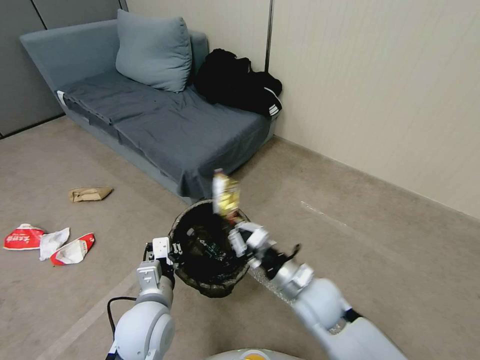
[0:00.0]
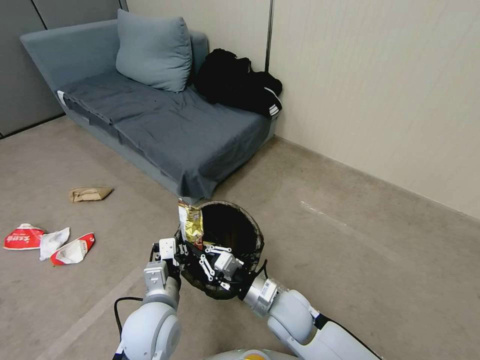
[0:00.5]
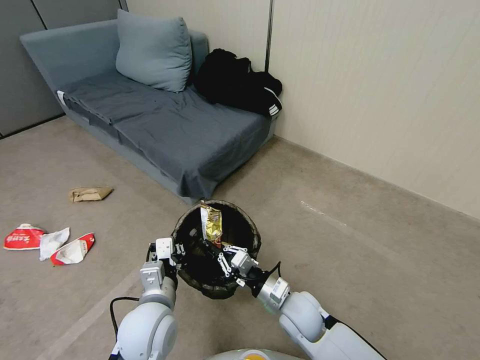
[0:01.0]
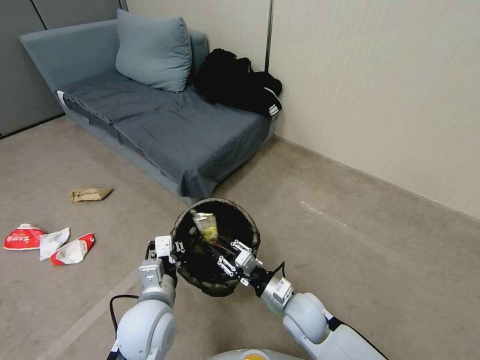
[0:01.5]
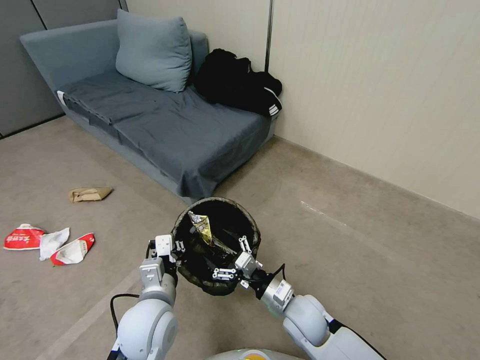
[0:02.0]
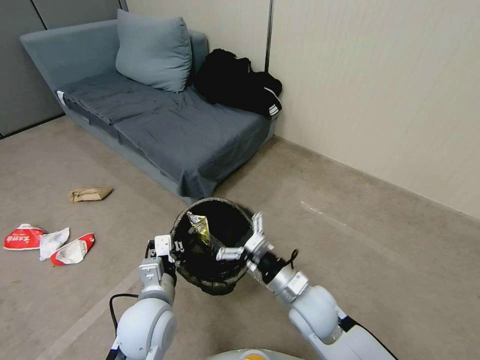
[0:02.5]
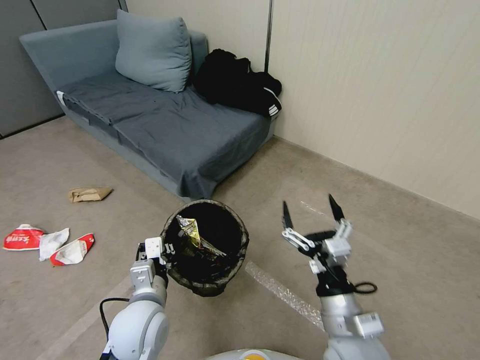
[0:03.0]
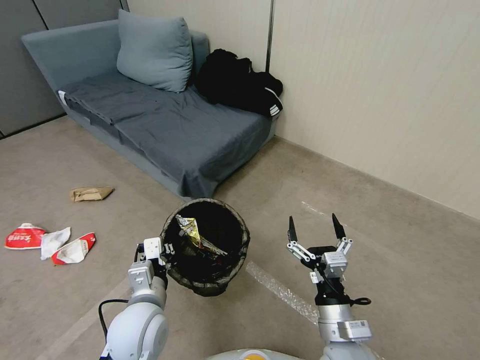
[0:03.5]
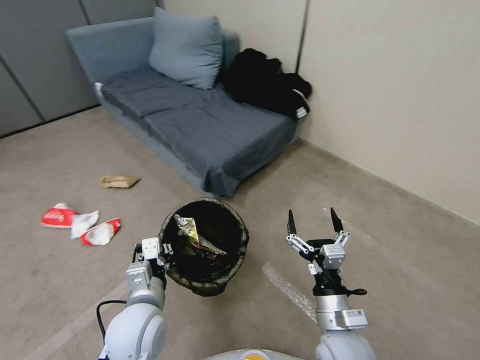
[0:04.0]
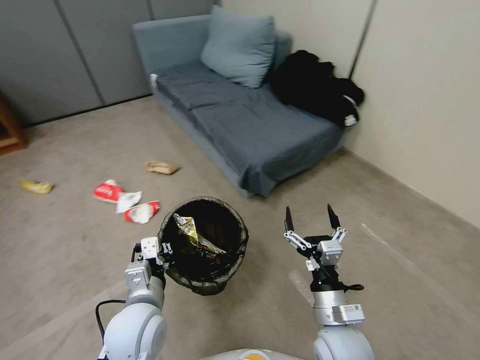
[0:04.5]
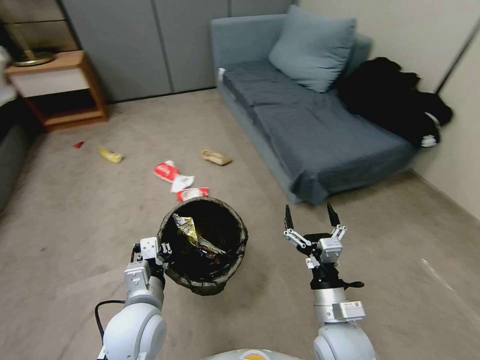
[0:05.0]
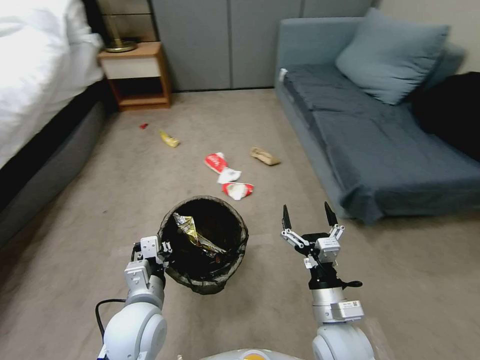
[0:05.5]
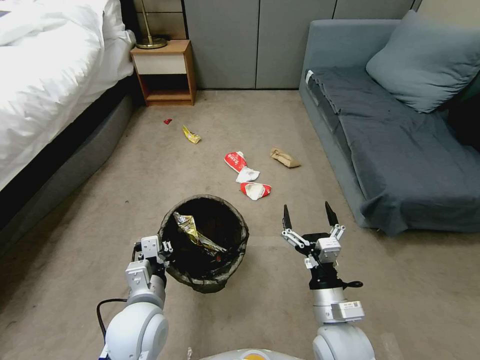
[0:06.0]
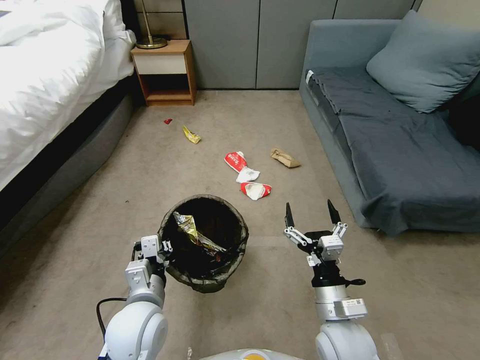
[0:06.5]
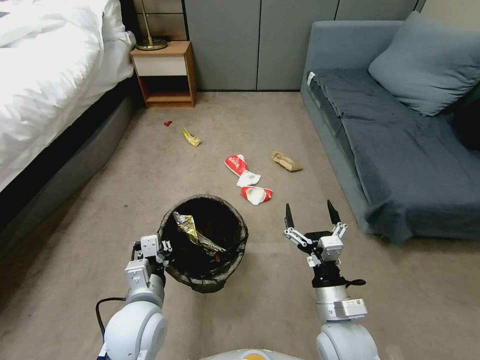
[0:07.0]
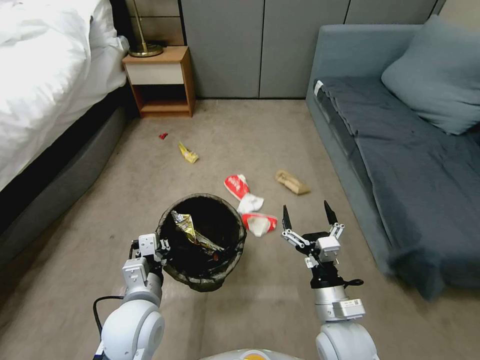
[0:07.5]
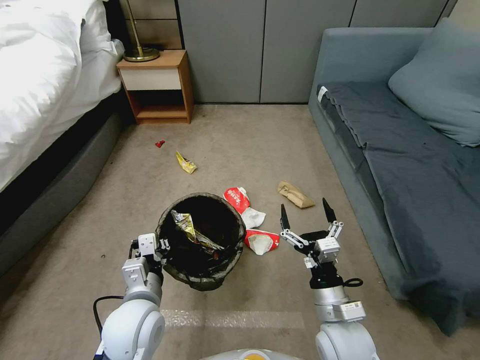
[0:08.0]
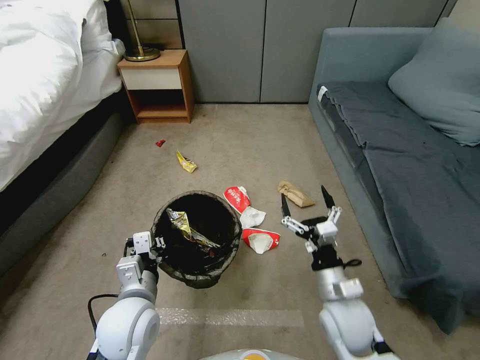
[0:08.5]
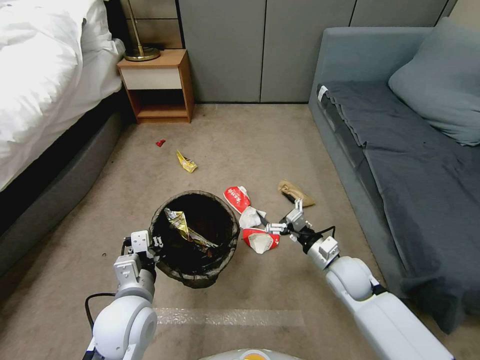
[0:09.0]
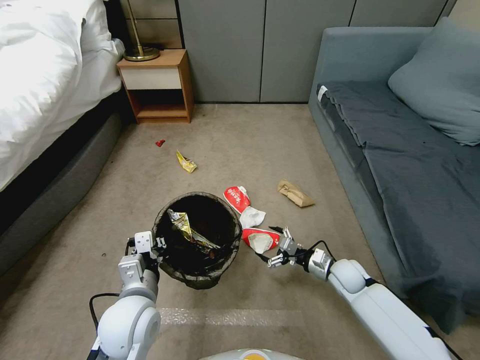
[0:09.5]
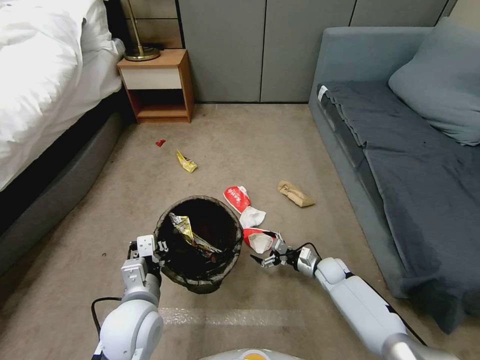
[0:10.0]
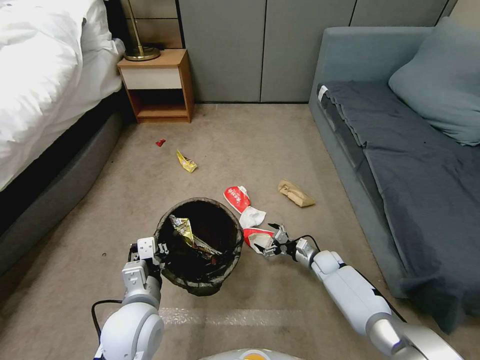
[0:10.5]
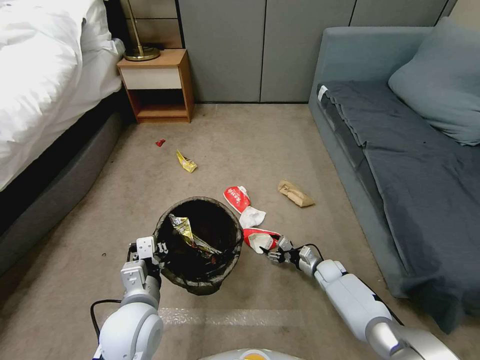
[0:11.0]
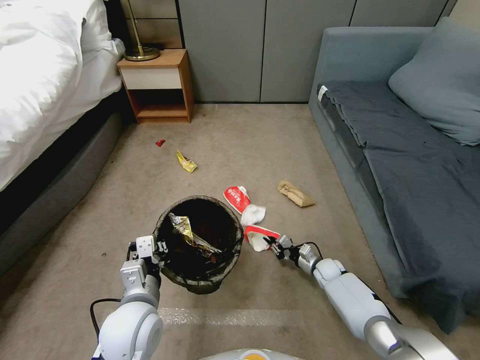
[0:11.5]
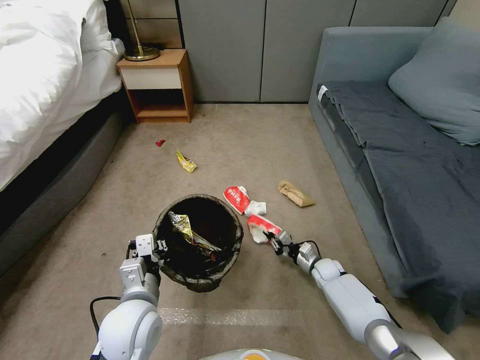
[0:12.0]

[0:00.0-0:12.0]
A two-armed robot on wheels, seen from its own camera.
Task of the whole recording: Pick up the trash bin, then pick up the garbage from the floor and place it into the trash bin.
0:00.0 to 0:02.0: The right gripper goes approximately 5 cm downward, and opens.
0:02.0 to 0:04.0: The right gripper goes approximately 10 cm backward and upward.
0:08.0 to 0:10.0: The right gripper shifts roughly 30 cm forward, downward and to the right.
0:10.0 to 0:12.0: The right gripper closes its fingers.

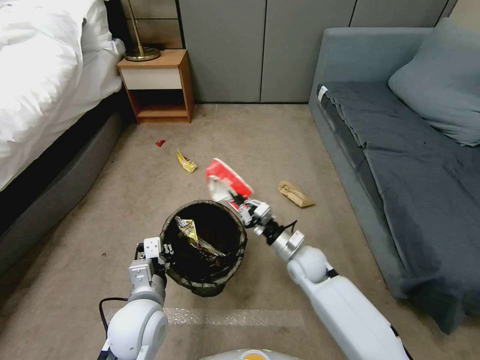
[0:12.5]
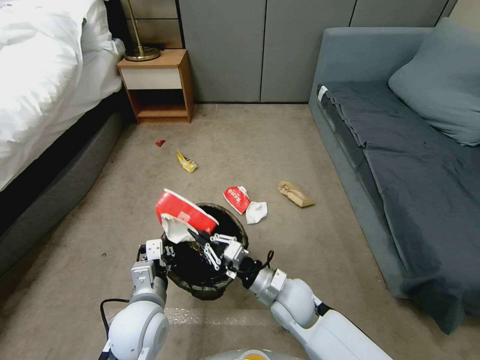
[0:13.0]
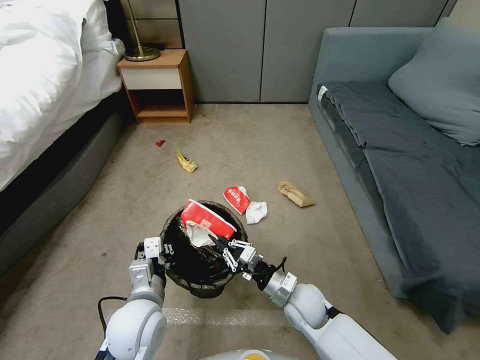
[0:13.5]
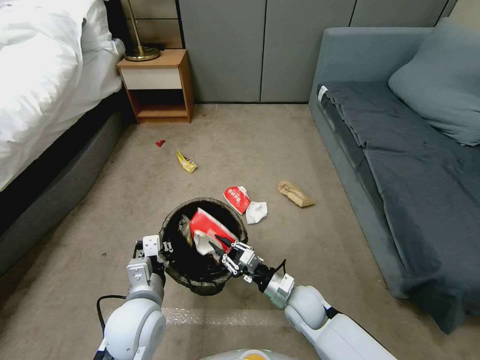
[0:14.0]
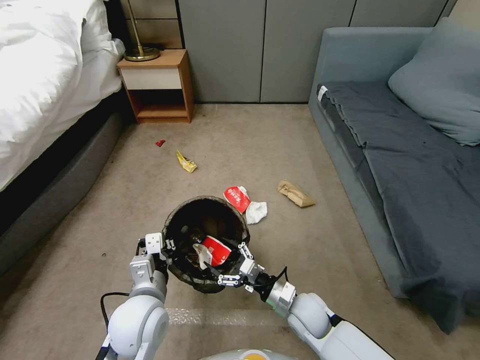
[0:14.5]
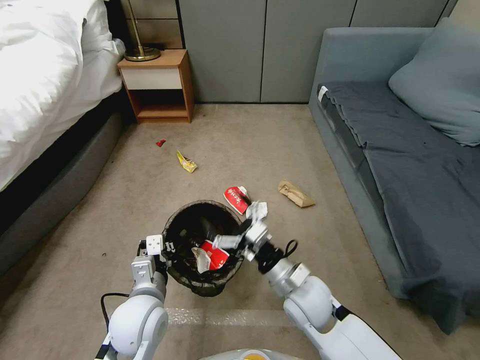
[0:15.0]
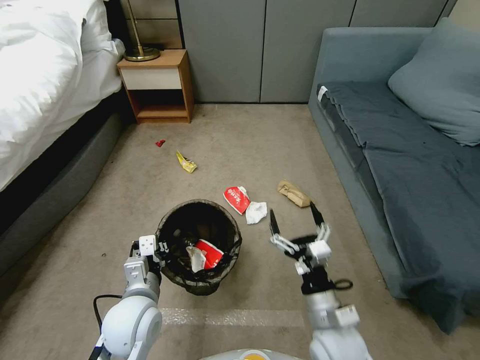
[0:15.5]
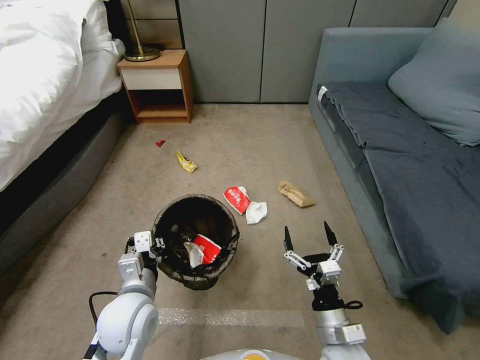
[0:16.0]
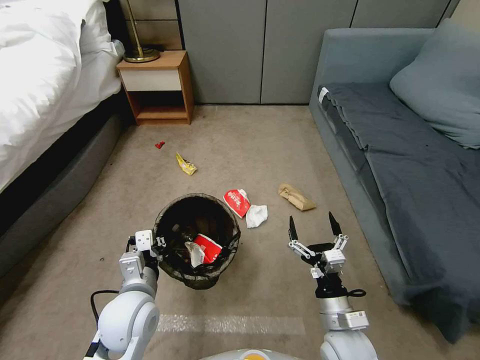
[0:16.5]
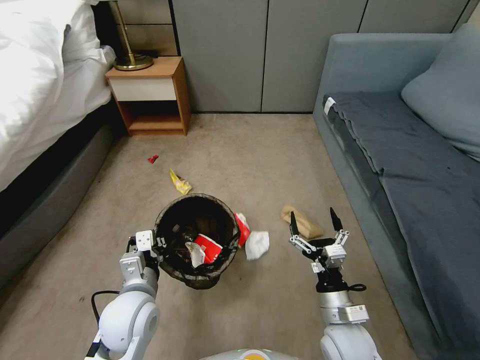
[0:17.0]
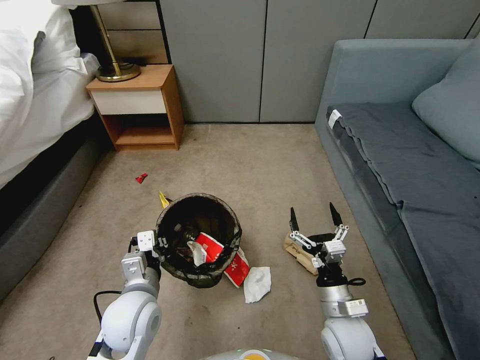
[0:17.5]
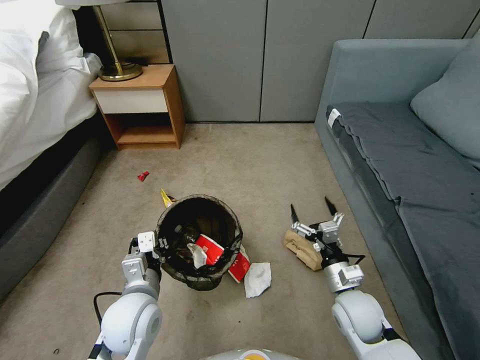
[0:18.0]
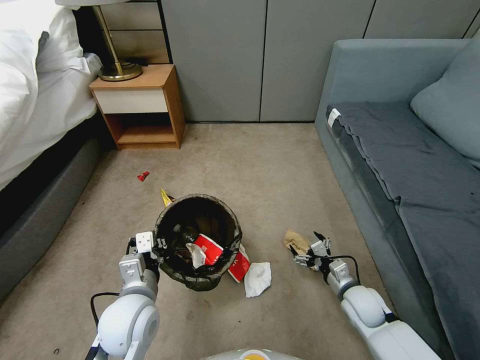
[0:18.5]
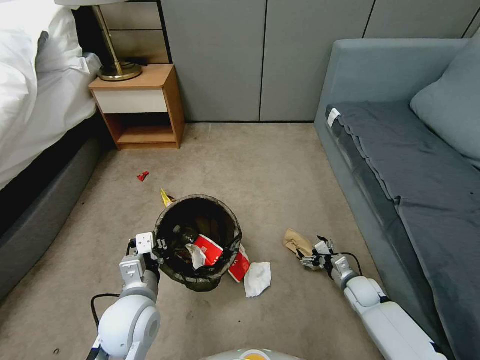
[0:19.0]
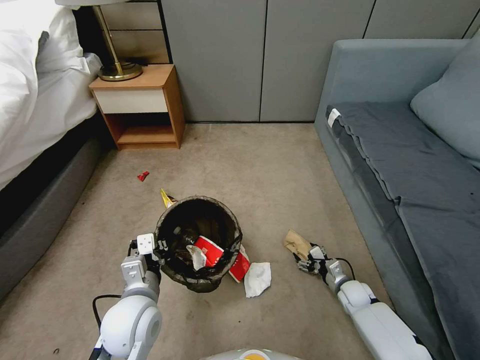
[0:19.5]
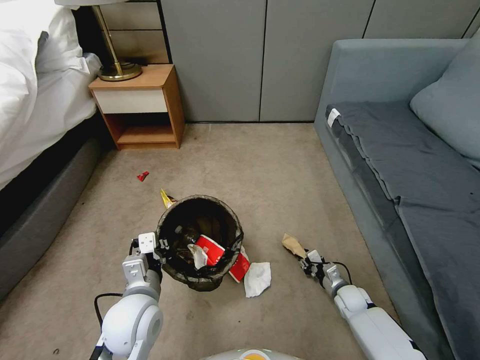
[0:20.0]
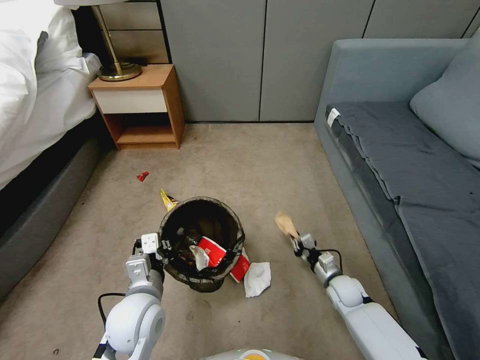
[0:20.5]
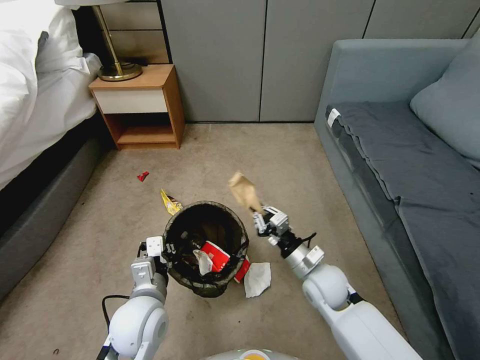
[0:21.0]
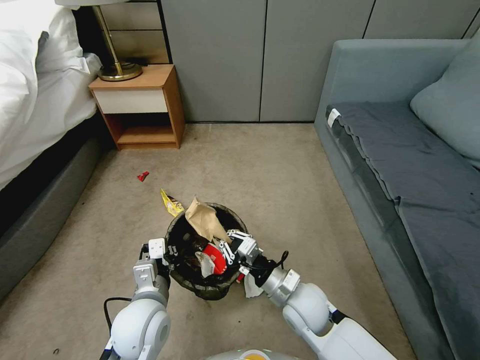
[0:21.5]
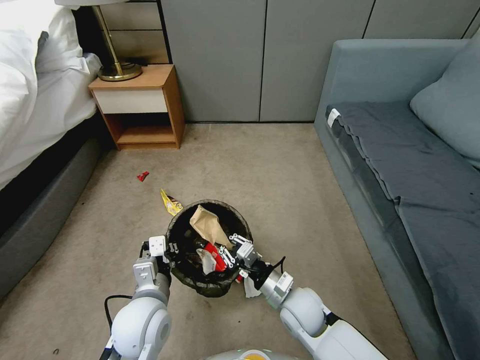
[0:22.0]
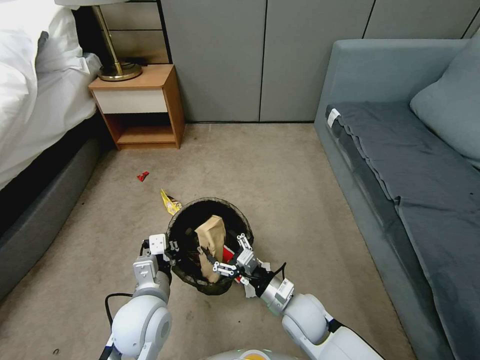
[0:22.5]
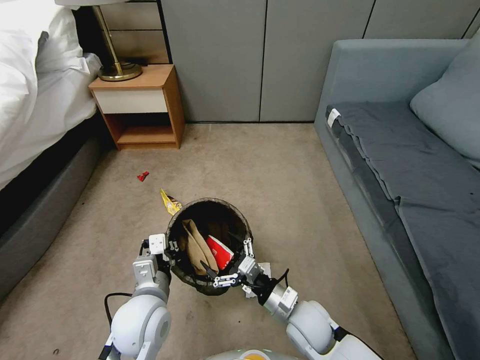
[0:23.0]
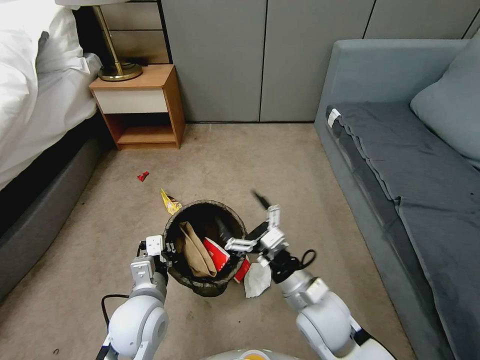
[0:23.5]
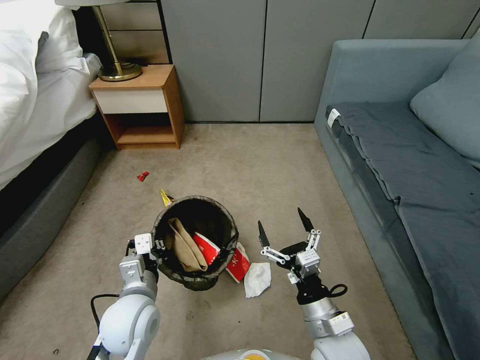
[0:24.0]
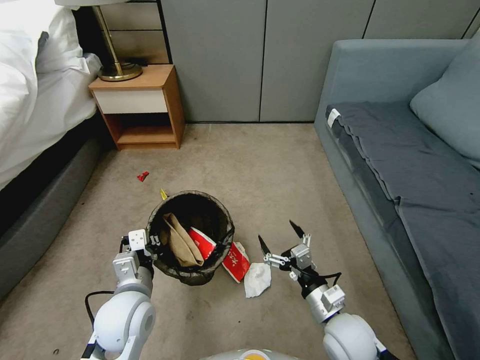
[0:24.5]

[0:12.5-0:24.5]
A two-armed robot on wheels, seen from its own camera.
Task of the whole recording: Pick up the trash bin, then pick up the garbage from the floor and place it into the trash bin.
0:12.5 to 0:14.5: The right gripper moves backward and downward, approximately 10 cm, and opens up.
0:14.5 to 0:16.5: The right gripper is displaced backward and upward by some 10 cm.
0:16.5 to 0:18.5: The right gripper is displaced forward, to the right and downward by some 15 cm.
0:18.5 to 0:20.5: The right gripper heads downward, covering approximately 5 cm, and closes.
0:20.5 to 0:22.5: The right gripper goes some 20 cm to the left, upward and backward, and opens its fingers.
0:22.5 to 0:24.5: The right gripper travels to the right by about 5 cm.

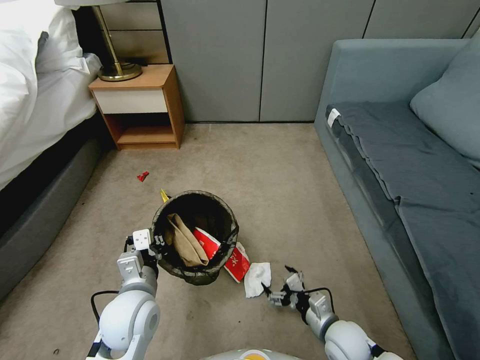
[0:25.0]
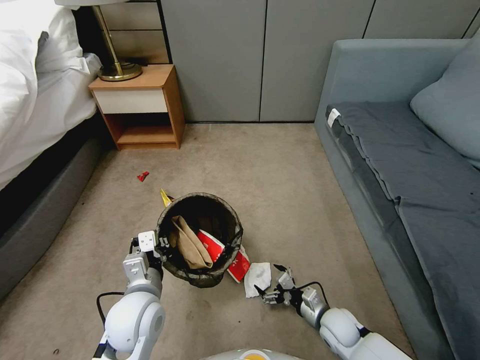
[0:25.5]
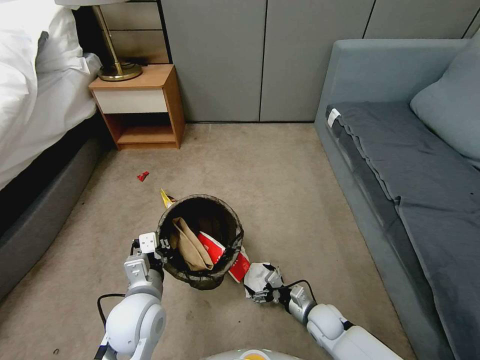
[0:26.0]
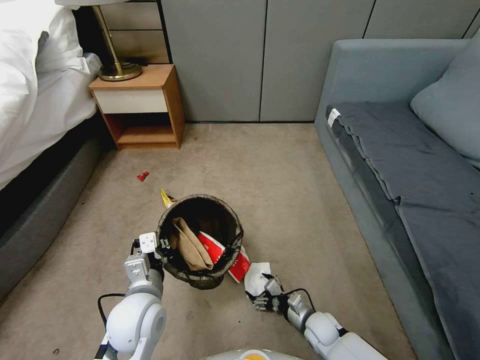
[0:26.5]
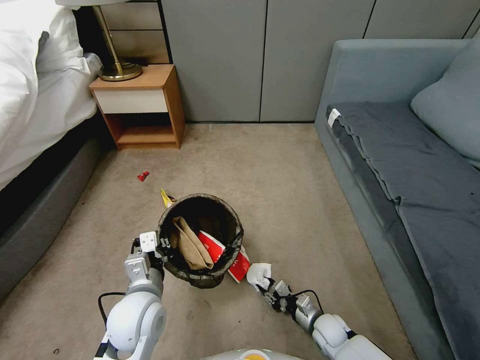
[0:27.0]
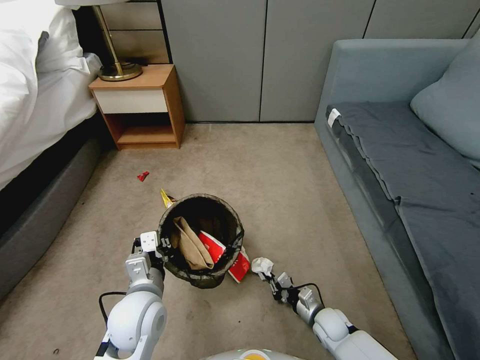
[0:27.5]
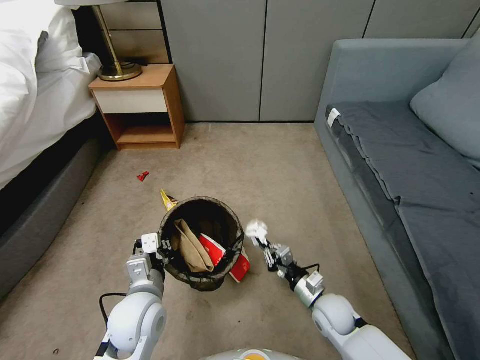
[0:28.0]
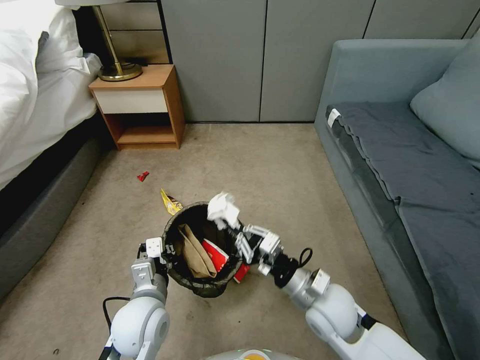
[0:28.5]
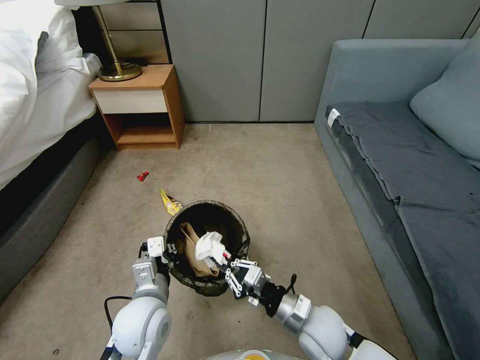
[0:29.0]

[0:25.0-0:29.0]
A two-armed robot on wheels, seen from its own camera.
Task of the whole recording: Pick up the trash bin, then pick up the garbage from the floor and place it into the trash bin.
0:25.0 to 0:27.0: The right gripper shifts about 10 cm downward, and closes.
0:27.0 to 0:29.0: The right gripper is displaced upward and to the left by approximately 20 cm, and closes up.
